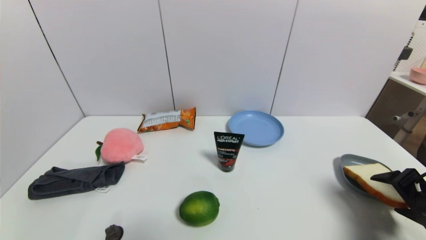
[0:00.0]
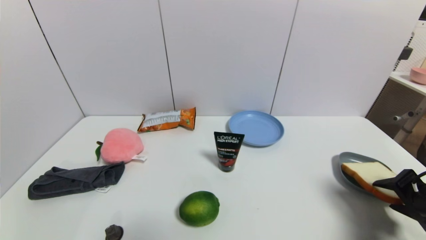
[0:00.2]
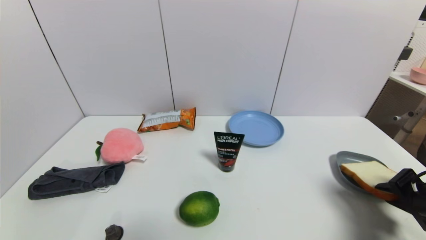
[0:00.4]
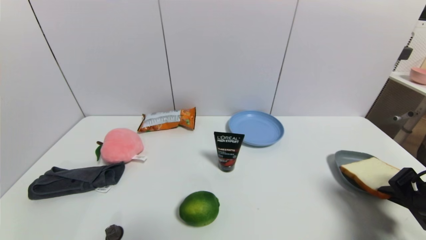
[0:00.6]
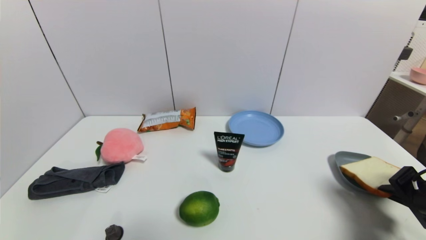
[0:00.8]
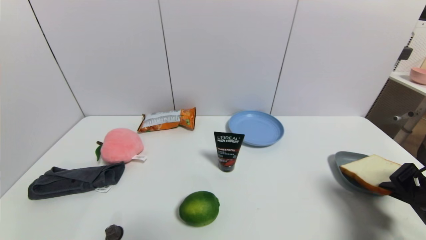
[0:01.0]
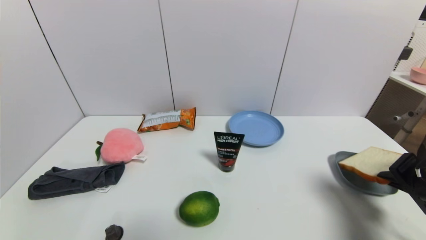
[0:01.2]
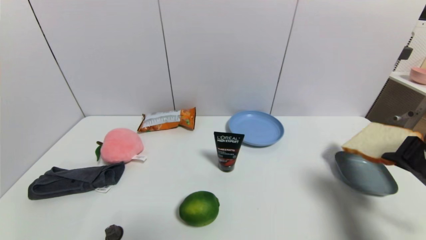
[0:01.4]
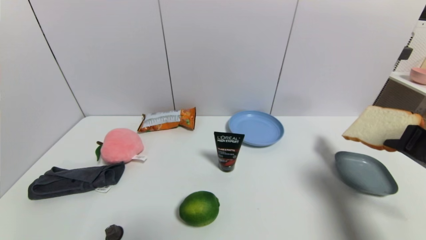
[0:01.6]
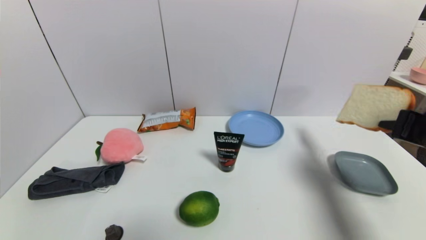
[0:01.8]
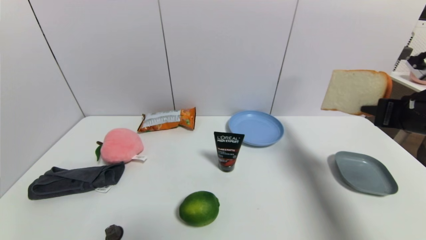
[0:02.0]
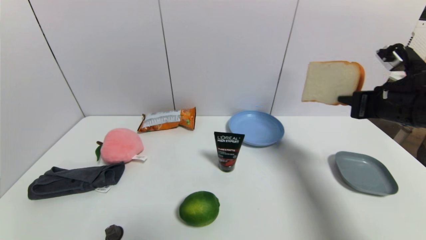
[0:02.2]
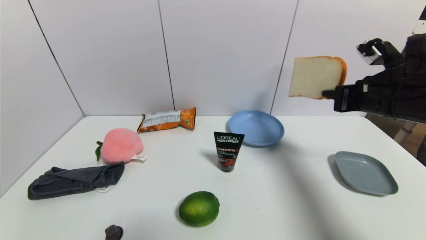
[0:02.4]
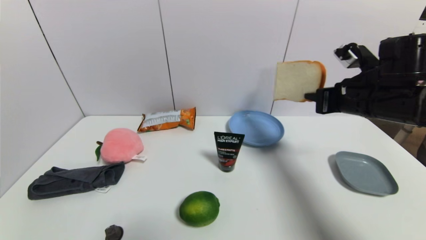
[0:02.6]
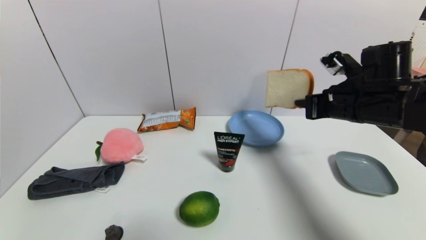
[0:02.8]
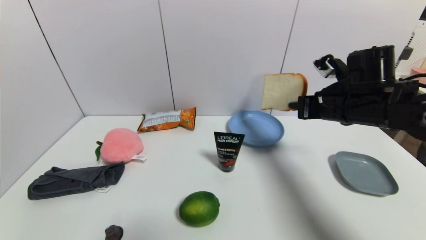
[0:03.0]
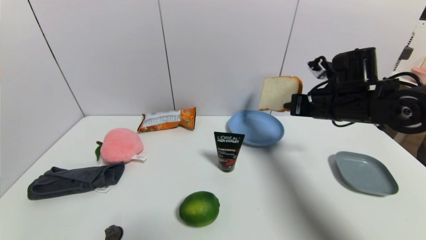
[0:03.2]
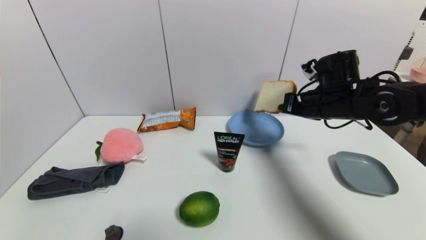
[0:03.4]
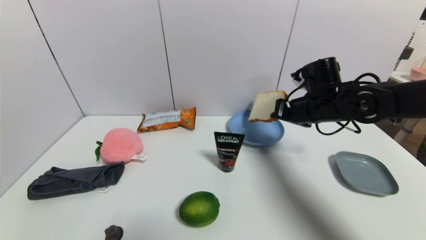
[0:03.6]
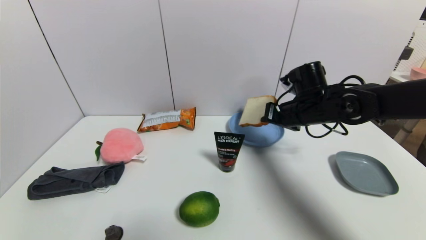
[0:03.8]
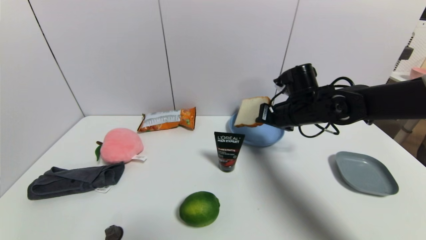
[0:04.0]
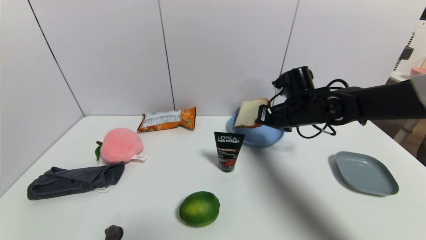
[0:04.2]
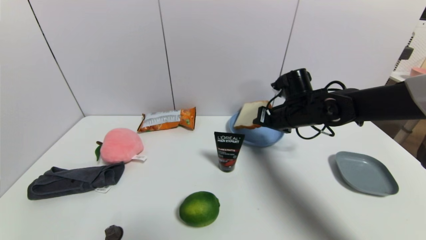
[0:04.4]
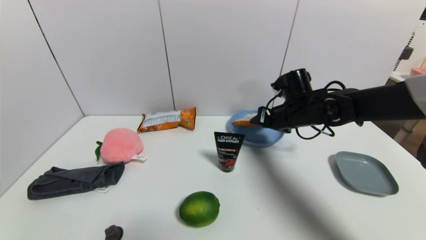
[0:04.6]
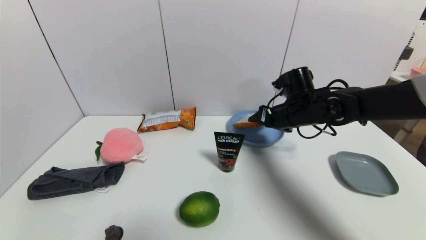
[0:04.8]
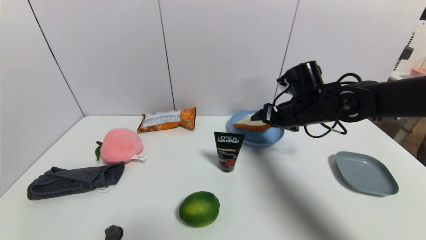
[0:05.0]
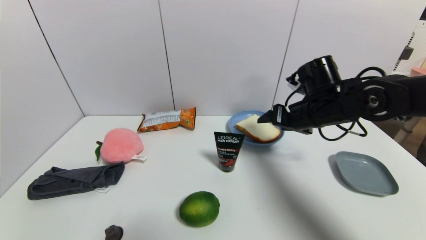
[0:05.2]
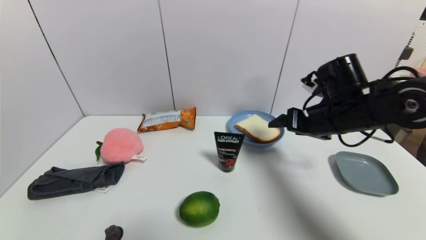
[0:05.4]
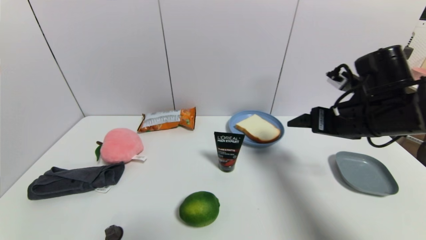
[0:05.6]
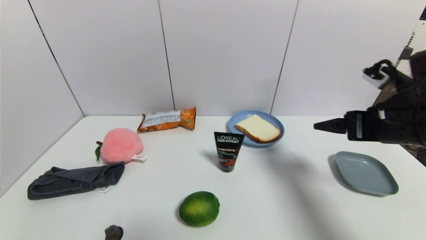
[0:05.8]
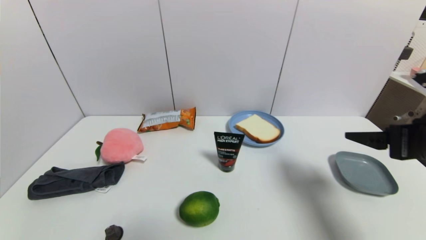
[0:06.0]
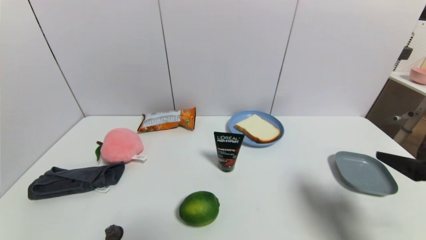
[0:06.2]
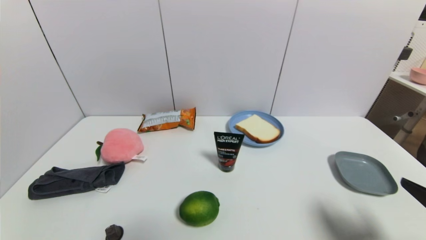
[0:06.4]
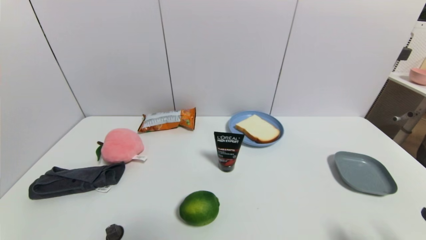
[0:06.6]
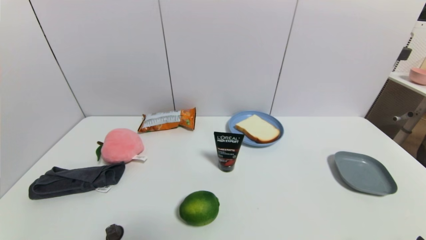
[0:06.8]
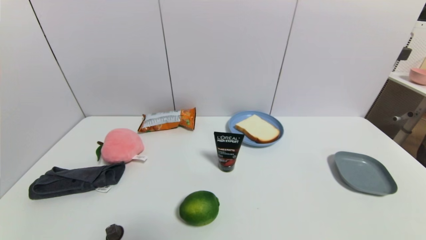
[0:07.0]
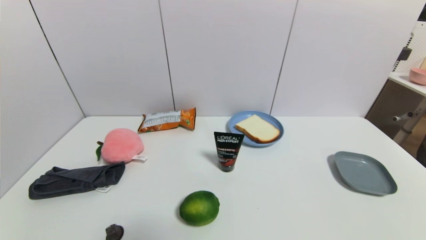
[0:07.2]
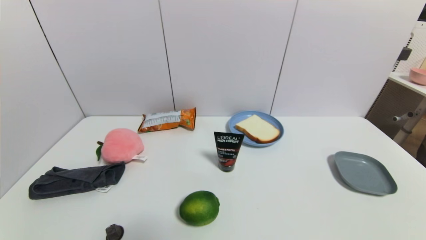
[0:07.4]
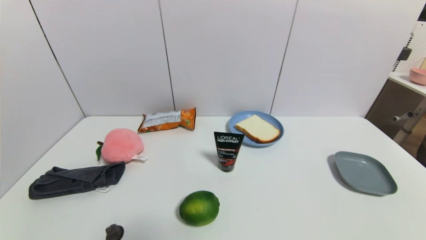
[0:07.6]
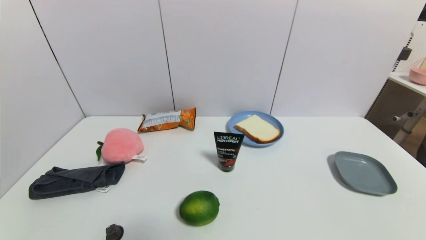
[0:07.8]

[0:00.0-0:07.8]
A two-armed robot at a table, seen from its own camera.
Task of the whole recording: use a gripper to pick the target object and place on the blue plate.
Step, 0:00.6 to 0:05.4: Place the round bread on the blue plate with the right gripper.
0:00.0 to 0:01.6: The right gripper moves upward, about 10 cm, and closes up.
0:01.6 to 0:03.2: The right gripper heads forward and to the left, covering some 20 cm.
0:03.2 to 0:04.6: The right gripper heads to the left, covering about 5 cm, and opens.
0:04.6 to 0:06.2: The right gripper heads backward and to the right, covering approximately 30 cm, and opens up.
0:06.2 to 0:07.8: The right gripper is displaced downward and backward by about 20 cm.

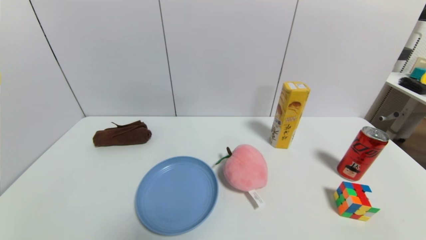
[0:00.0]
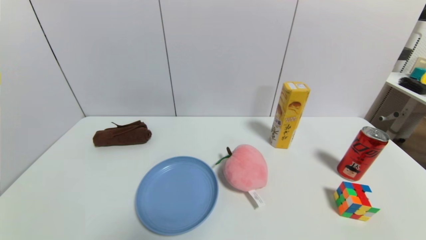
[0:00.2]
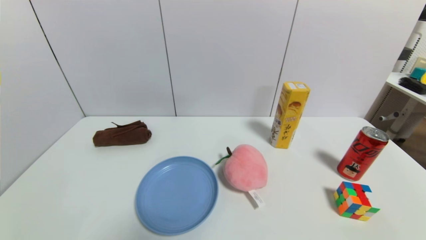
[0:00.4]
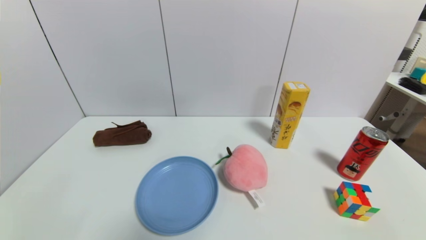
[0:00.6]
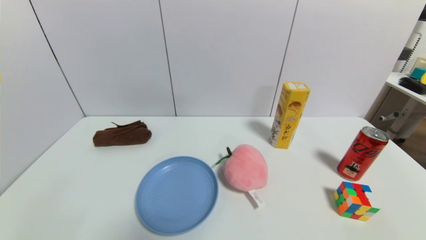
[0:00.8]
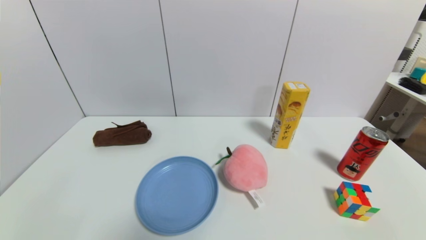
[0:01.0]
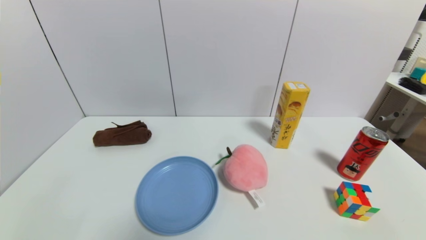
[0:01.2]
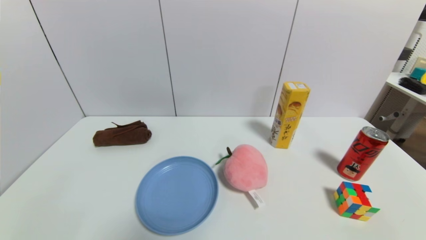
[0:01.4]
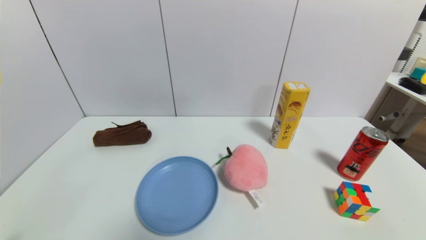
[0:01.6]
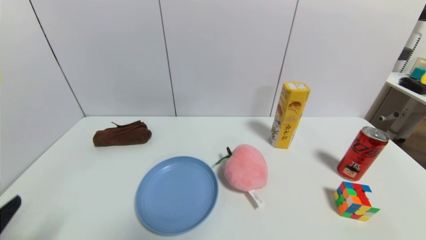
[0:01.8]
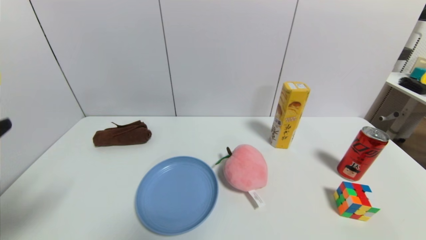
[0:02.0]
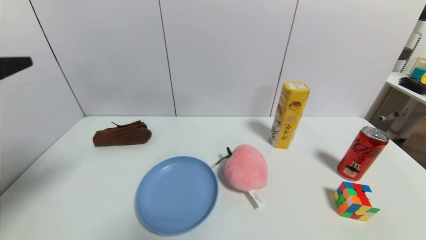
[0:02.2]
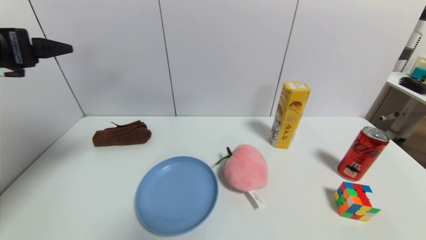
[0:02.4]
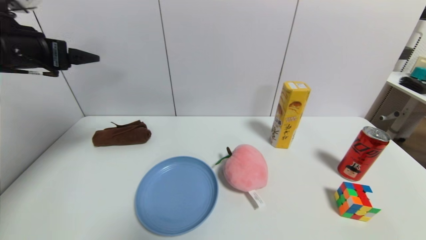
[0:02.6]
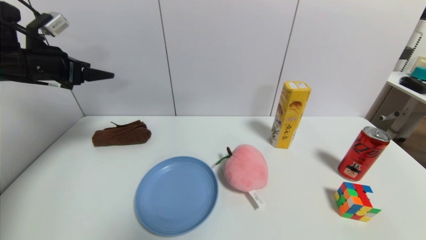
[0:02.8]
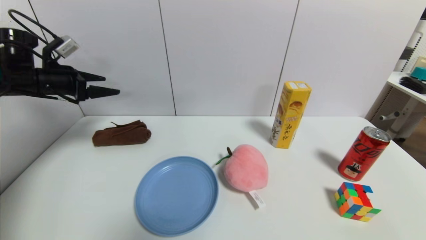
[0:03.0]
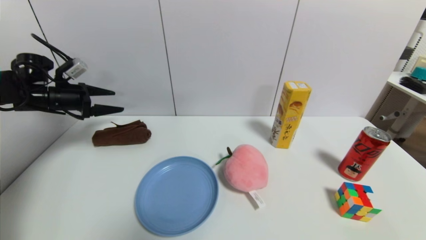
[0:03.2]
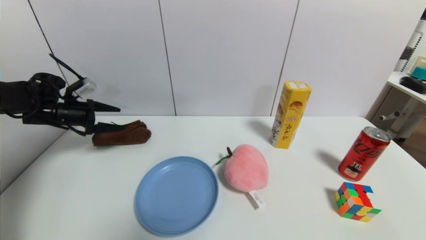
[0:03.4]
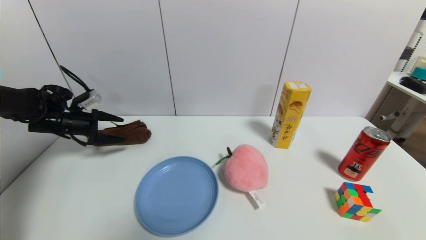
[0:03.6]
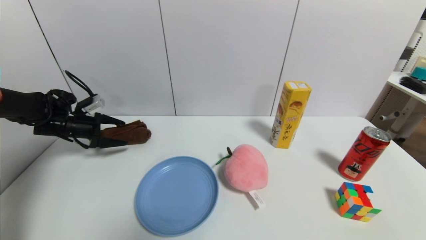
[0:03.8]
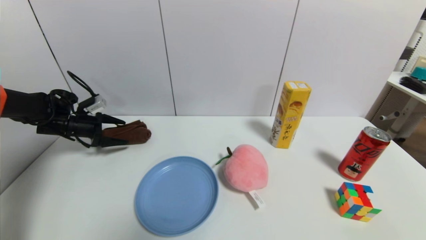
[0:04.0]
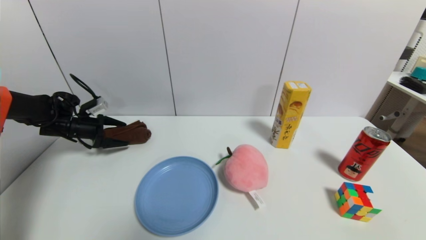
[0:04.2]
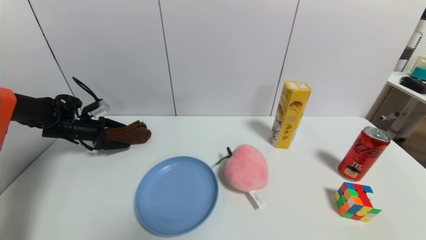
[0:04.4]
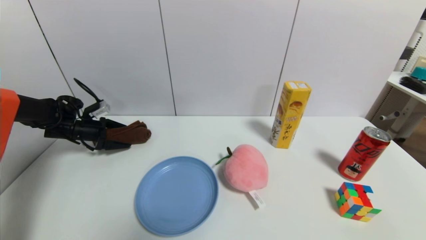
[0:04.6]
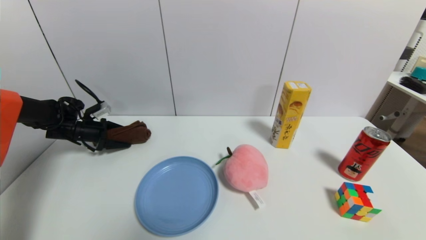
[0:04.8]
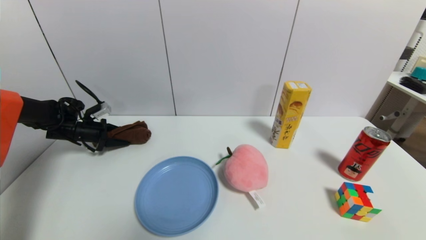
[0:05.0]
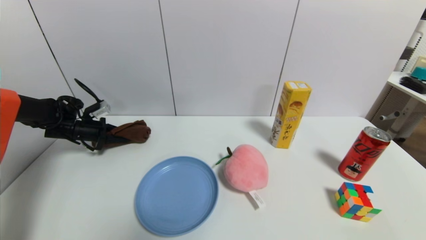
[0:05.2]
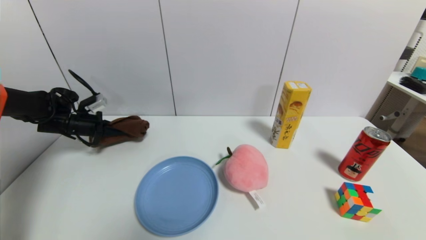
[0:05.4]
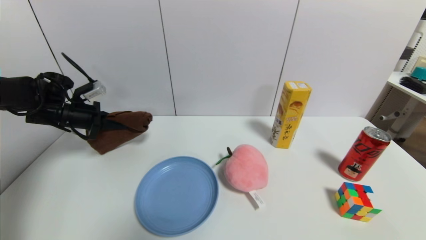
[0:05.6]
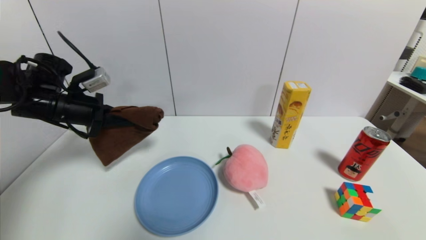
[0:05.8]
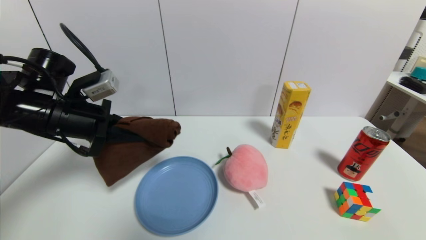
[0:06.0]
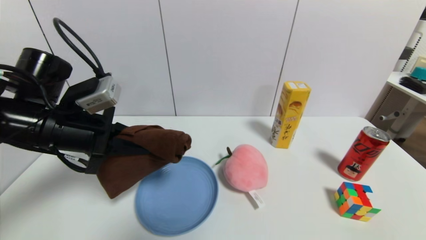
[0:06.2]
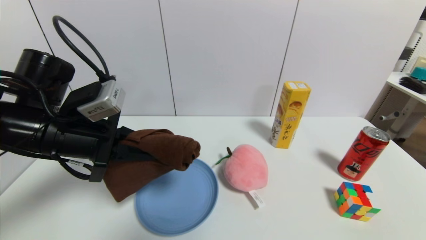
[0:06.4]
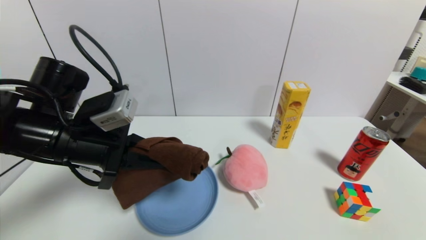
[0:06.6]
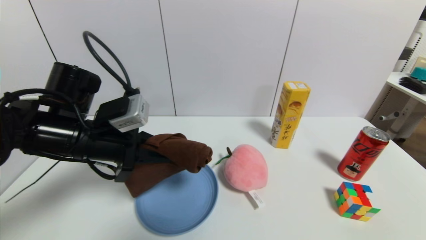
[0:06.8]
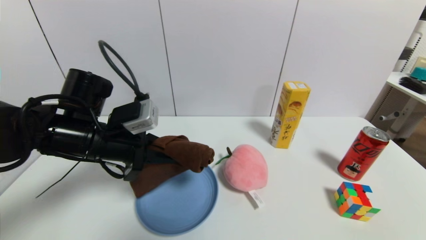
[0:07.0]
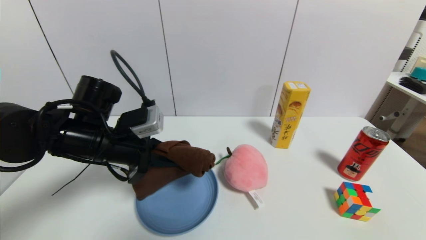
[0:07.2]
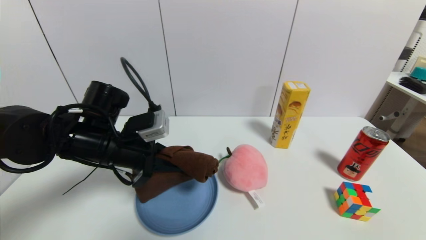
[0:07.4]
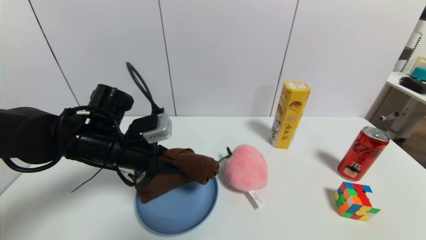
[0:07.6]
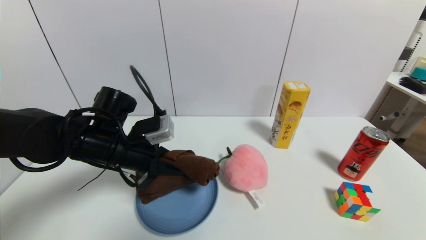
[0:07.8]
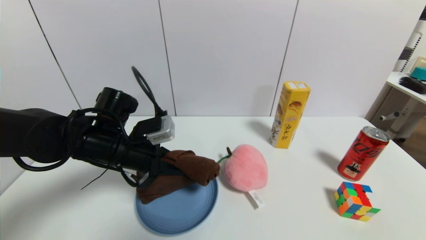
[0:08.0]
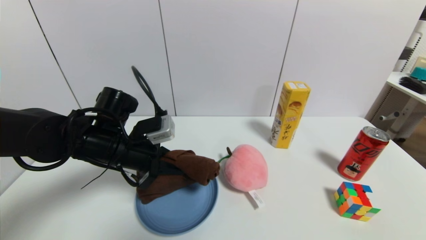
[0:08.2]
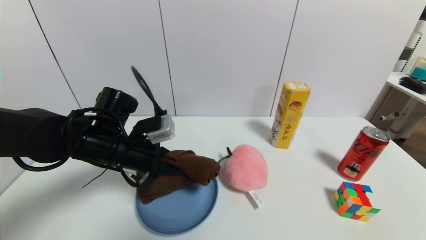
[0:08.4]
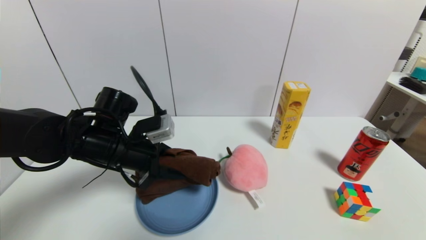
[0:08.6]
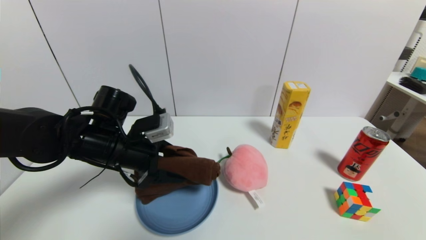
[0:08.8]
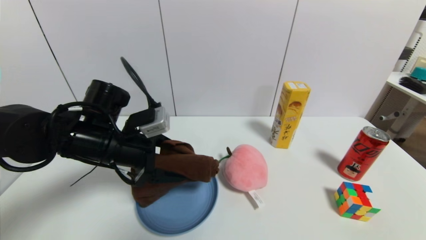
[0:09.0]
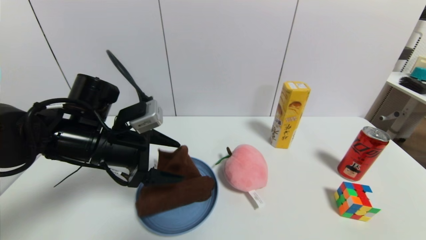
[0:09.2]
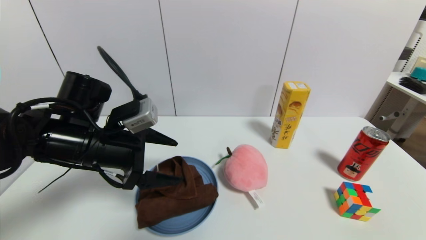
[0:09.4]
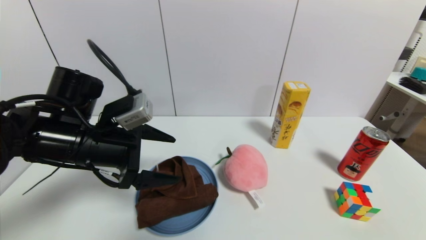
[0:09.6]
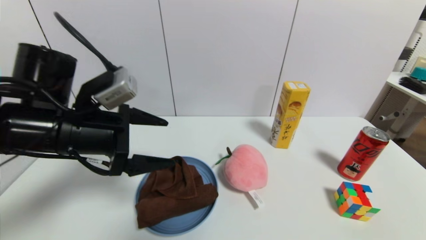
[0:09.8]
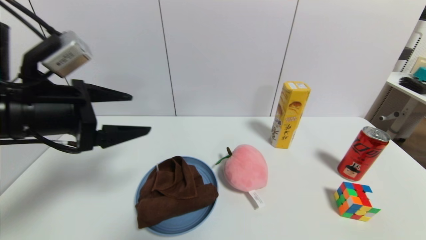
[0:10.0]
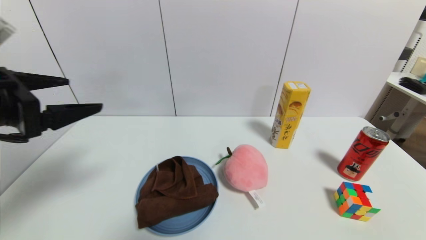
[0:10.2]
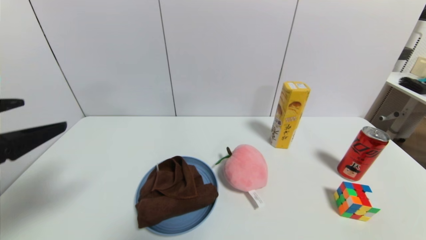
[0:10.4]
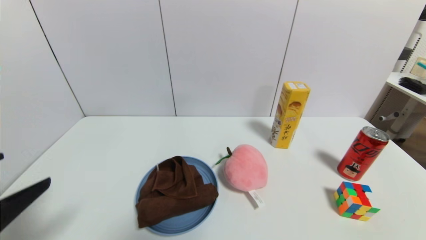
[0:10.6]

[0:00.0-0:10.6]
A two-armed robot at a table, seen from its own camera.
Task of the whole recording: use a gripper to pick the target object and place on the blue plate.
Step, 0:00.0 to 0:05.2: Grasp the brown towel with the left gripper.
Step, 0:05.4 to 0:10.2: Place the brown towel on the blue plate with the left gripper.
0:01.6 to 0:03.0: The left gripper is displaced forward by roughly 35 cm.
0:03.0 to 0:04.6: The left gripper goes approximately 15 cm downward.
0:04.6 to 0:06.0: The left gripper travels backward, to the right and upward by about 25 cm, and closes its fingers.
0:06.0 to 0:07.6: The left gripper goes about 10 cm to the right and downward.
0:07.6 to 0:09.0: The left gripper opens.
0:09.0 to 0:10.6: The left gripper moves backward and to the left, some 25 cm.
